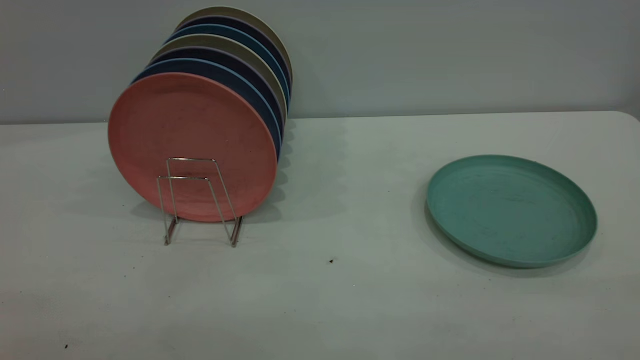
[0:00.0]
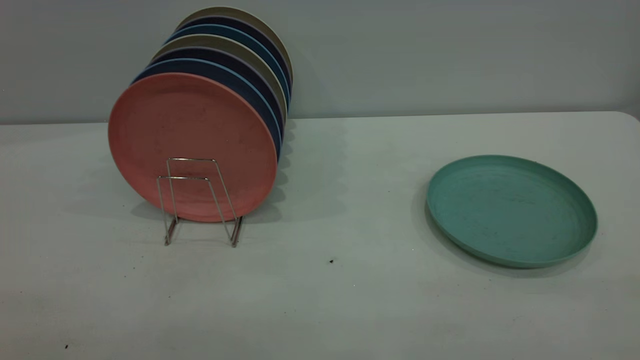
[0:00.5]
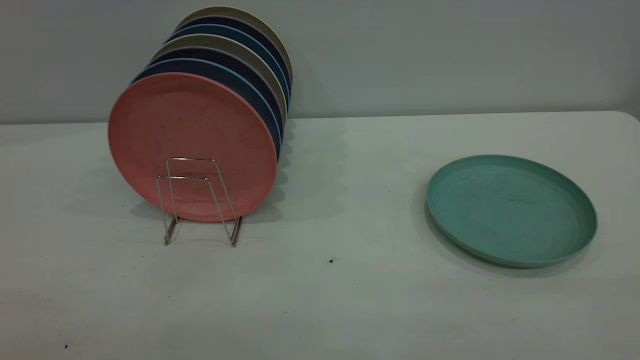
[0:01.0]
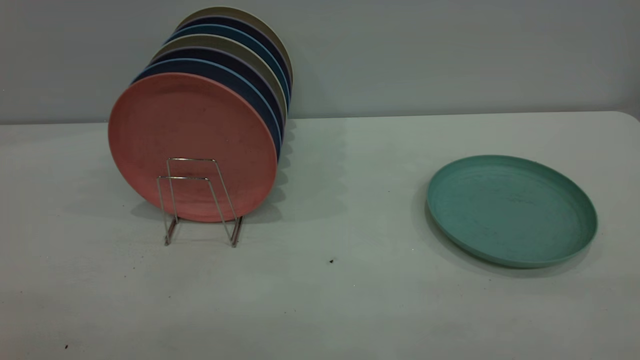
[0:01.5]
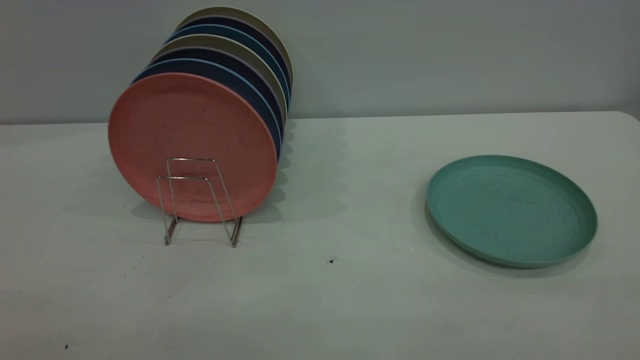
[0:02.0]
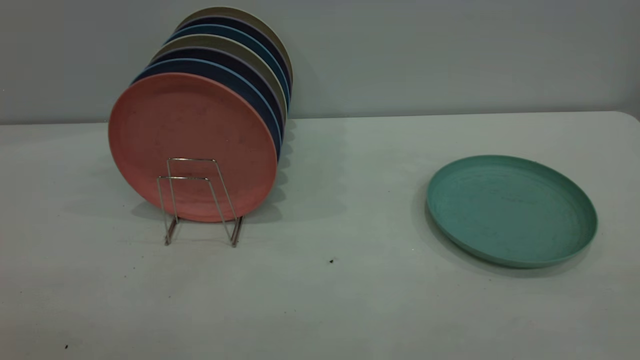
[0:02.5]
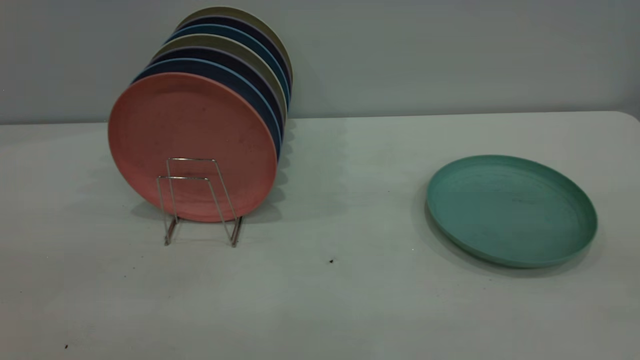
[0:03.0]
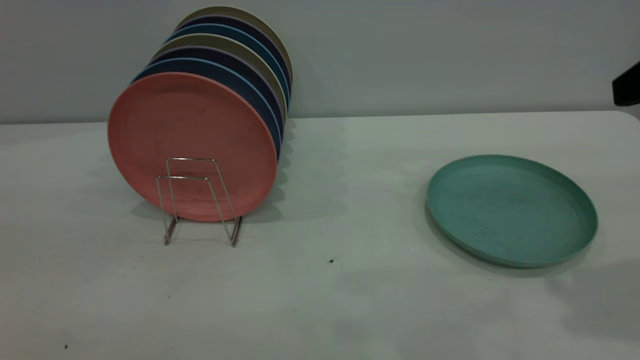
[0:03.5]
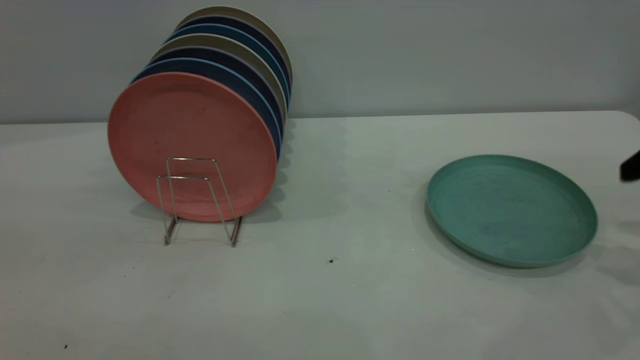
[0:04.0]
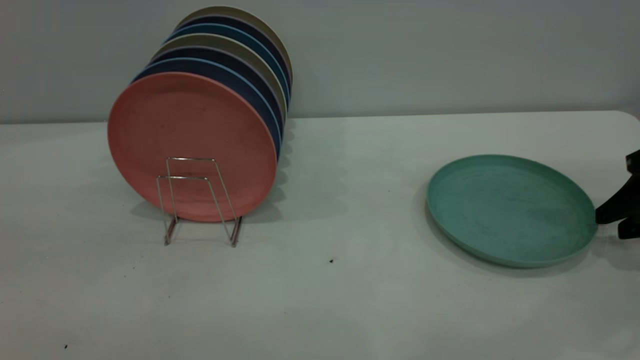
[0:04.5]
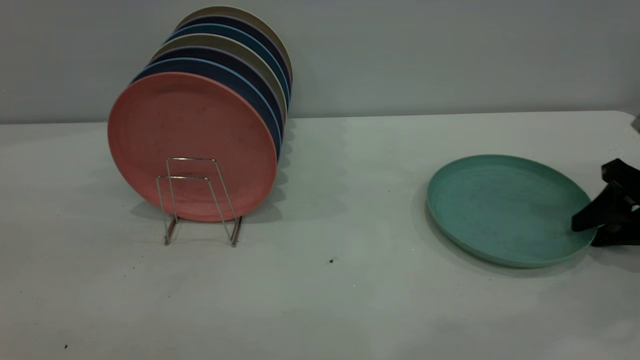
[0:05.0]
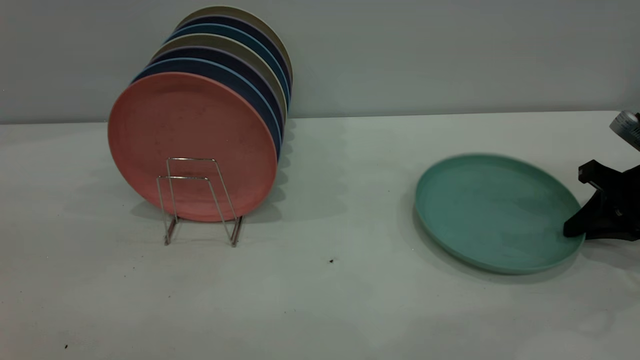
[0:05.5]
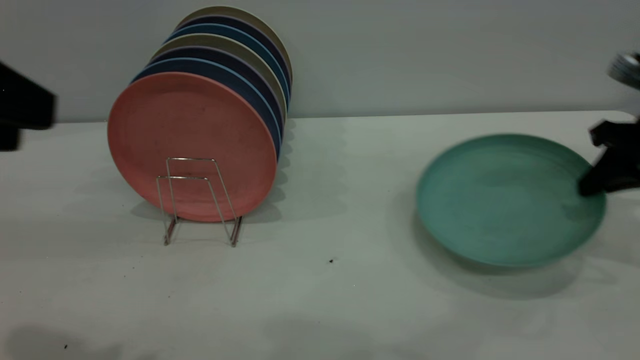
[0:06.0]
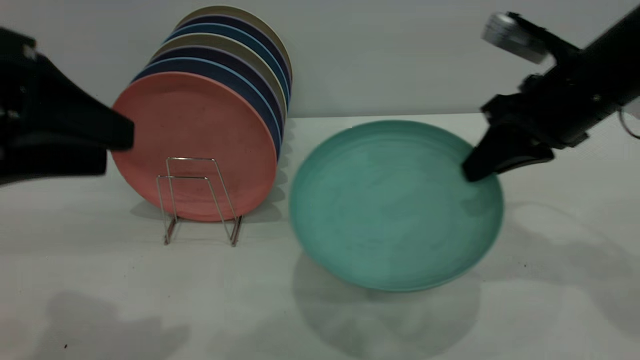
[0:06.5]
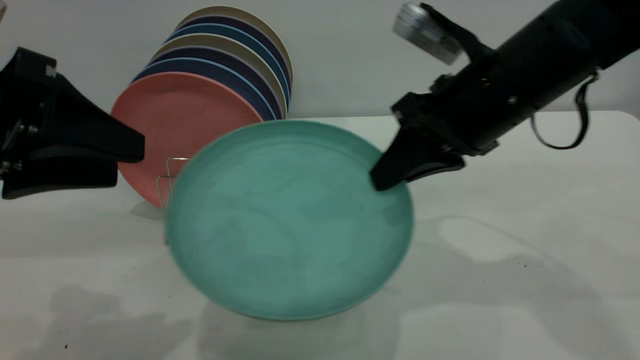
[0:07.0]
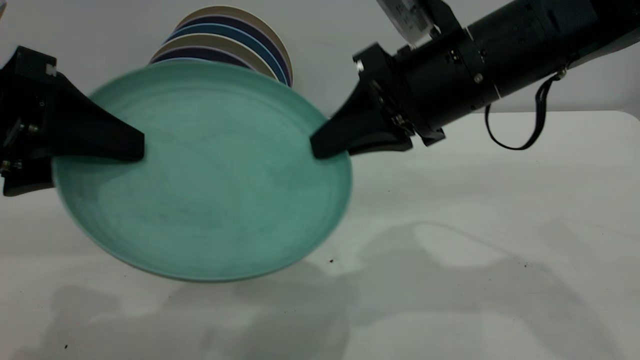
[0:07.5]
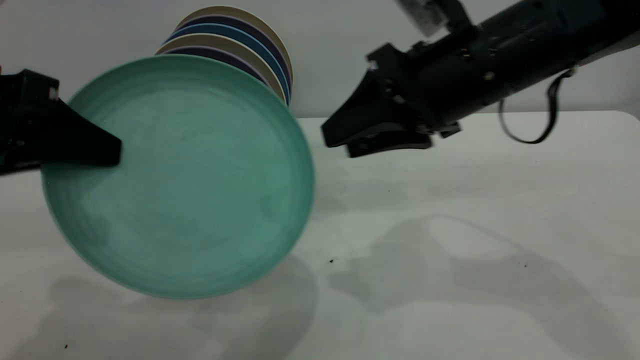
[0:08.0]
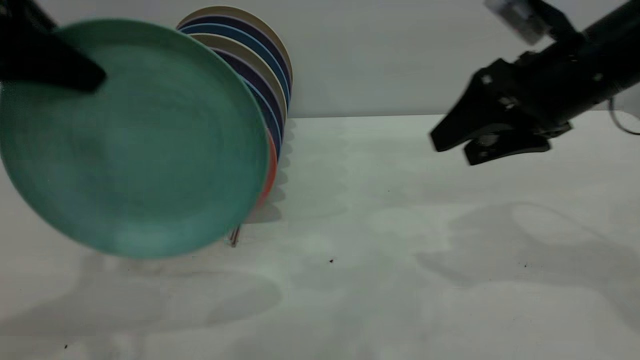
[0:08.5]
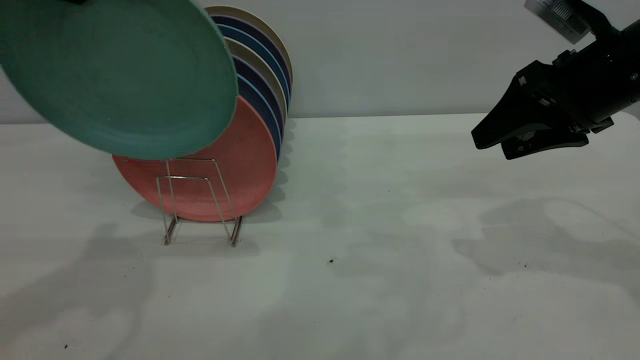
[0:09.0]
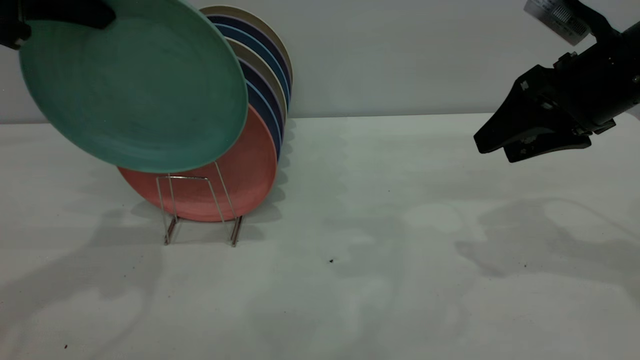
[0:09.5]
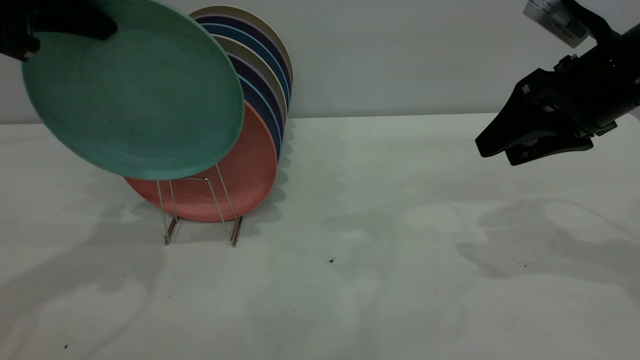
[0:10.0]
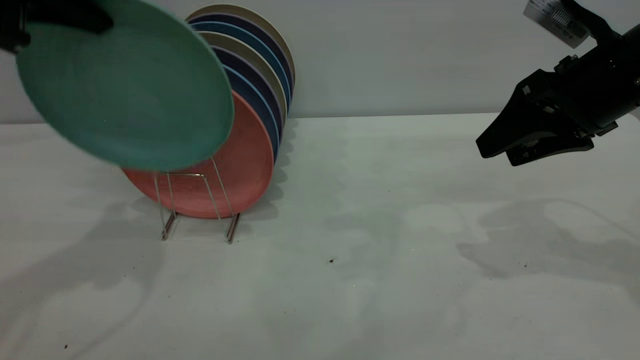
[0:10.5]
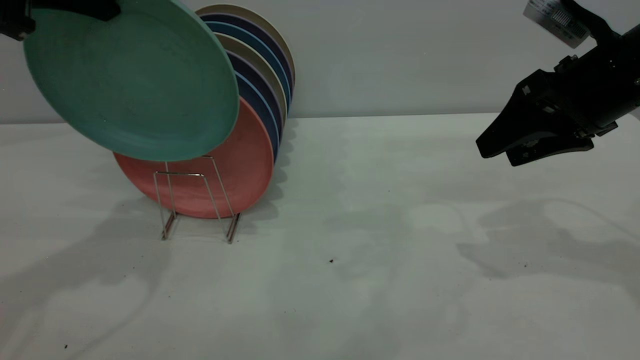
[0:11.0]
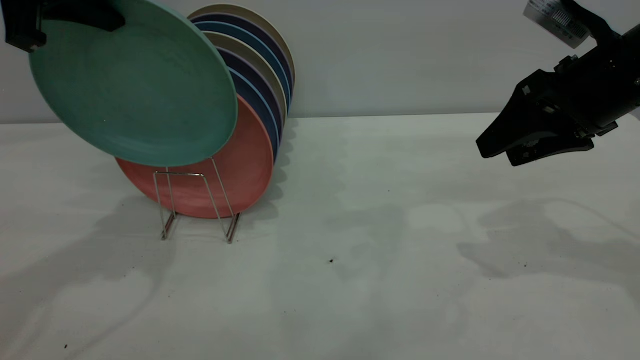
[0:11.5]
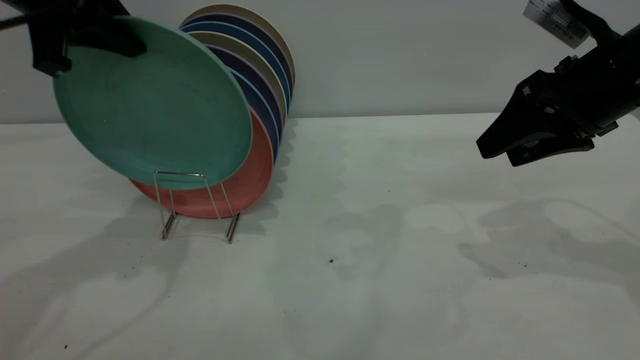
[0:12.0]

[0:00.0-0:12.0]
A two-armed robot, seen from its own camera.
Task of the whole recording: the right gripper grasp the green plate, the right gripper pass the green plate to the left gripper, and the left gripper place the green plate on the plate rack.
Step, 0:00.0 to 0:06.0: Pick up the plate with the right gripper.
Step, 0:06.5 to 0:07.5: Pass the plate from the right gripper to the left gripper.
0:00.0 to 0:02.0: Neither gripper changes place.
0:04.0 to 0:06.0: The grippers both shift forward by roughly 5 cm. The right gripper reaches some 10 cm downward, then returns, and closes up.
0:06.0 to 0:08.0: The left gripper heads downward and forward, covering roughly 10 cm, and closes up; the right gripper is displaced to the left by approximately 20 cm, and opens its fingers.
0:08.0 to 0:10.0: The left gripper shifts about 15 cm forward and upward; the right gripper heads to the right, covering about 15 cm.
0:10.0 to 0:12.0: The grippers move only a little.

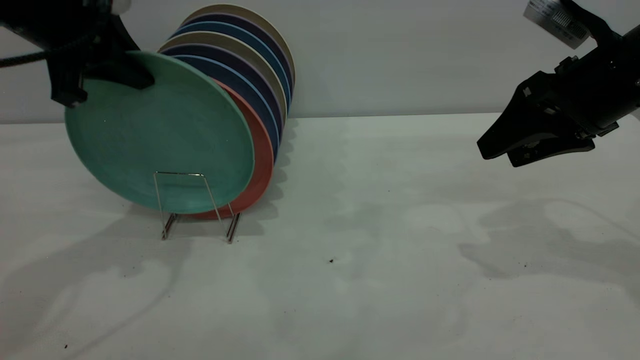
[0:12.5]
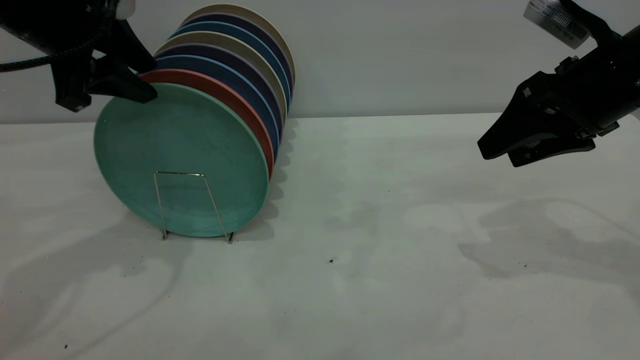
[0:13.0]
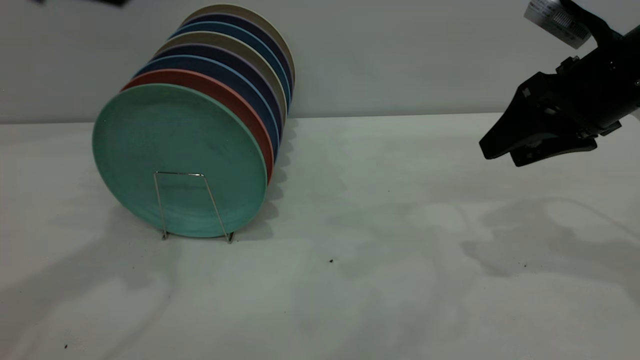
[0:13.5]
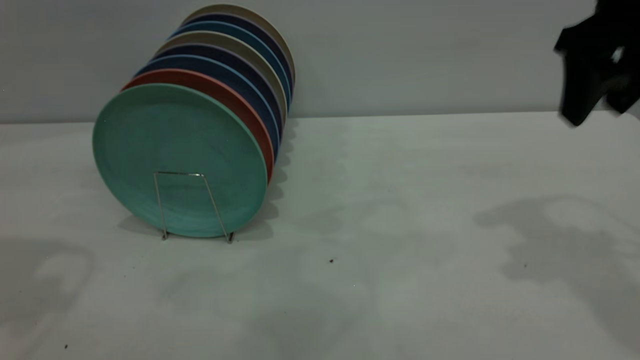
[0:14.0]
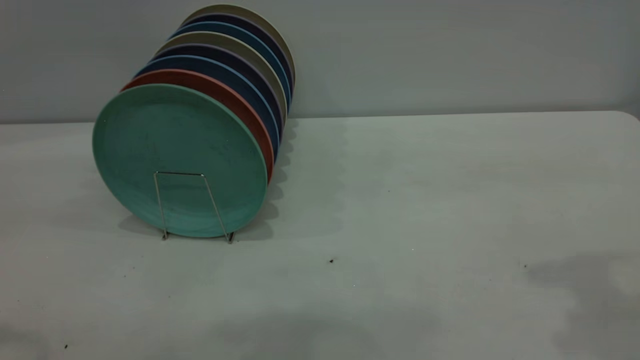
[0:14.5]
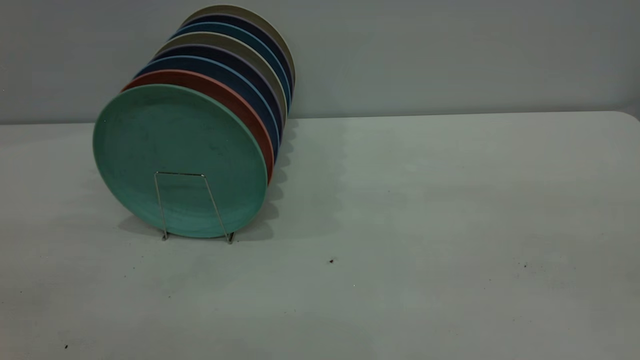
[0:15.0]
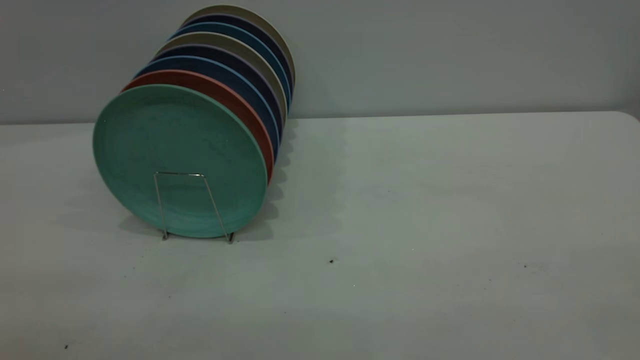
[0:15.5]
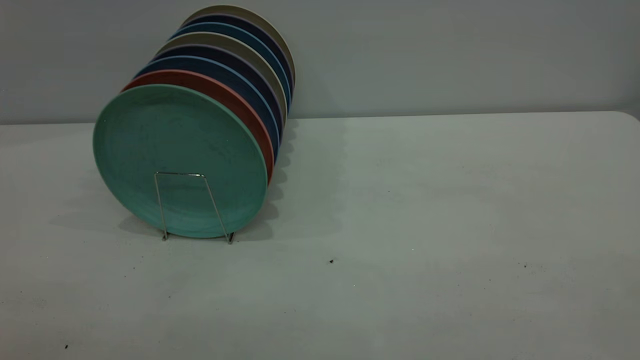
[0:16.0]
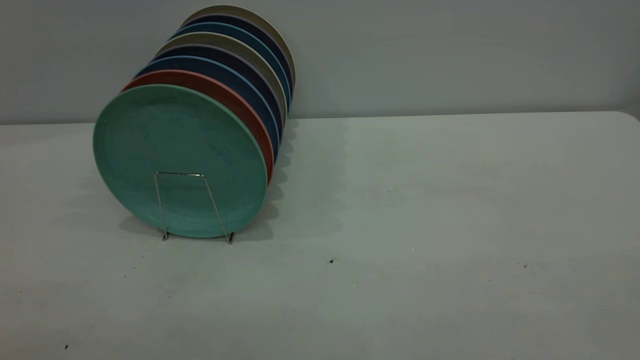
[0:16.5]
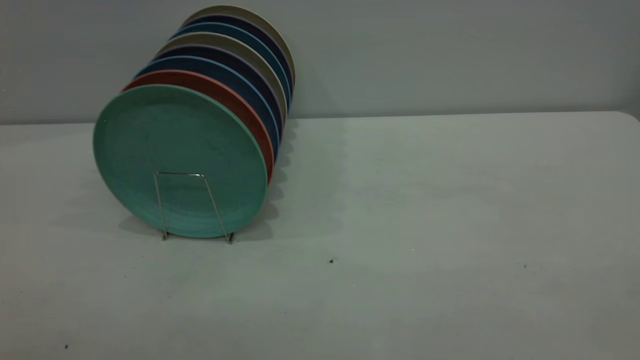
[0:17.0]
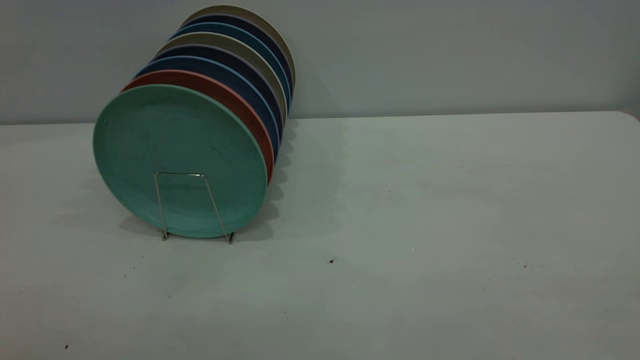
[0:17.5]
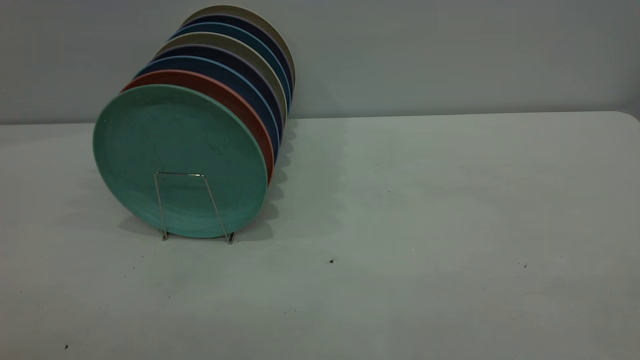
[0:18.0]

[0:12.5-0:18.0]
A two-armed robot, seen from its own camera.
Task of the whole recording: the right gripper grasp the green plate, the right gripper pass the green plate to the left gripper, and the left gripper place the green plate on the plate rack.
0:12.5 to 0:14.5: The right gripper goes about 25 cm upward and backward; the left gripper moves backward and upward, roughly 25 cm, and opens its fingers.

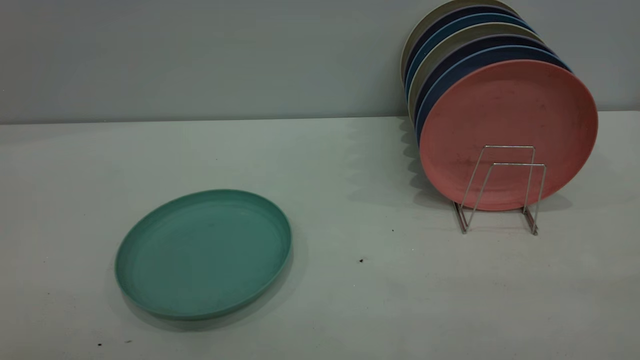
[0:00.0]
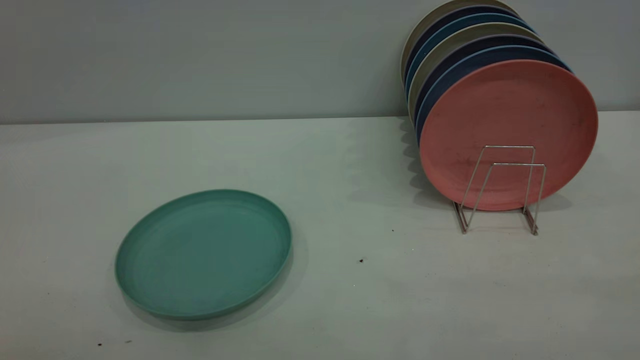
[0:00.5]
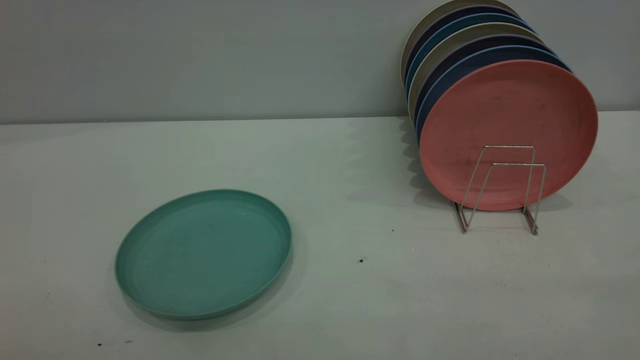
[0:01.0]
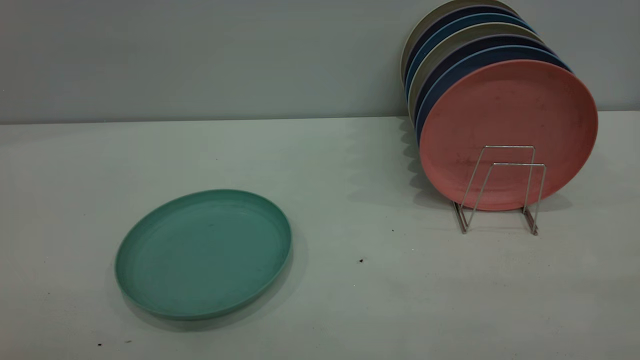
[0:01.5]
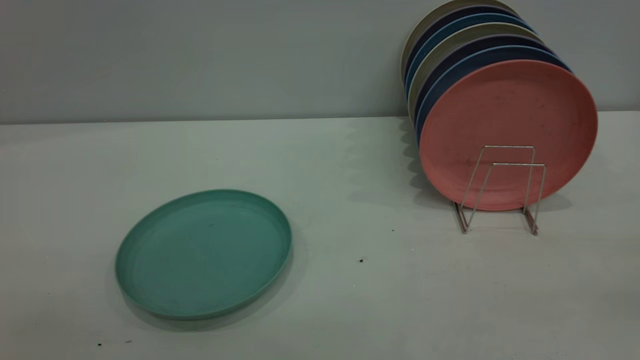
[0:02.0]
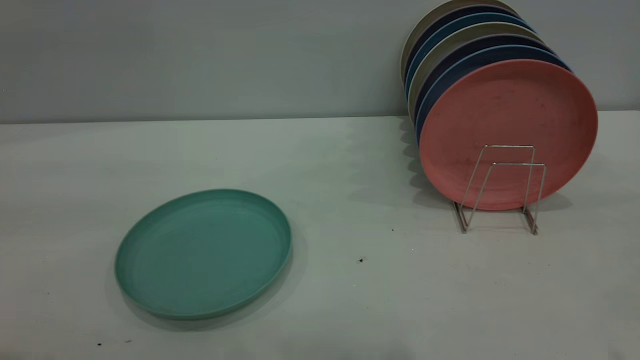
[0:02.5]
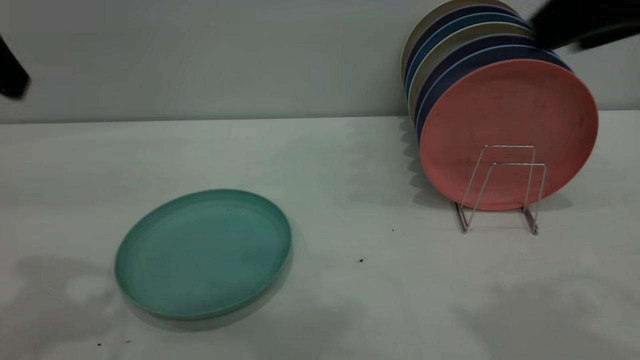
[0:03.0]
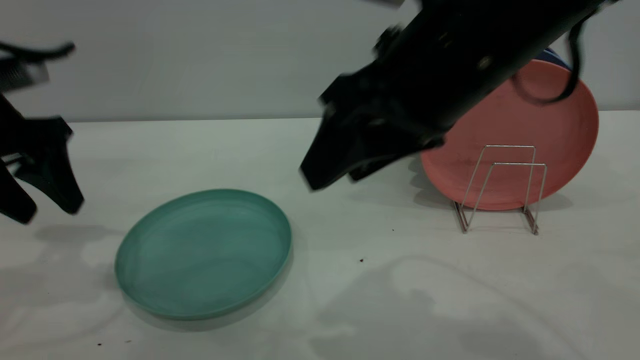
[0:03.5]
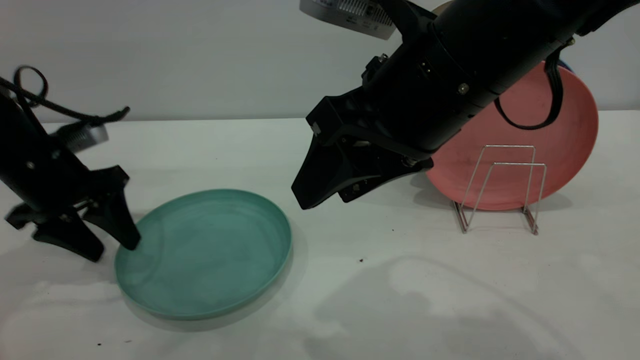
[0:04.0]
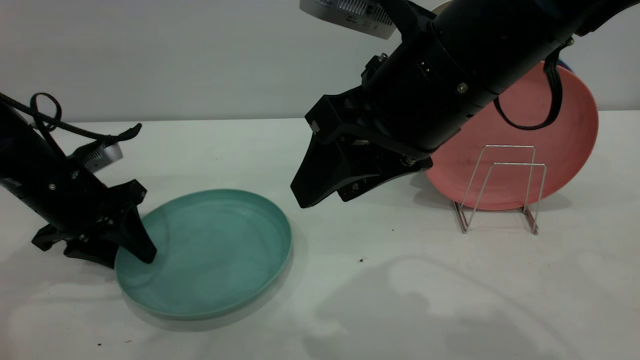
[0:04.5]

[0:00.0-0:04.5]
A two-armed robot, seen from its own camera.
Task of the whole recording: the left gripper grasp the green plate, the left gripper pass the green plate to the right gripper, and the right gripper place the green plate on the plate rack.
0:02.0 to 0:04.5: The right gripper heads forward, to the left and downward, covering some 35 cm, and opens up. The left gripper shifts about 40 cm forward and downward, and closes its fingers.
